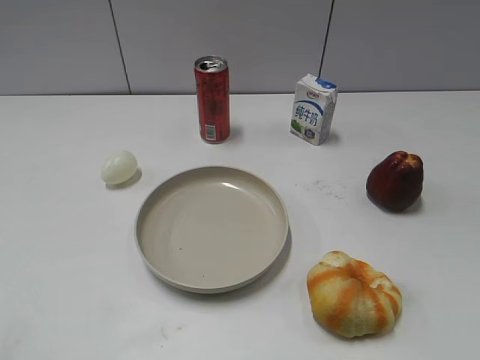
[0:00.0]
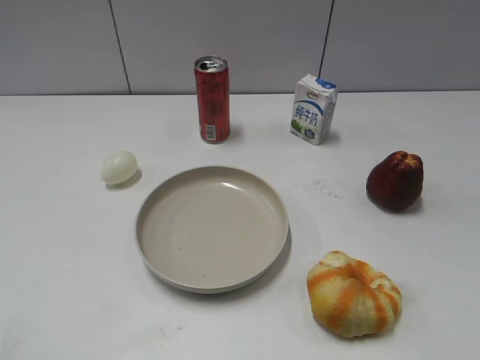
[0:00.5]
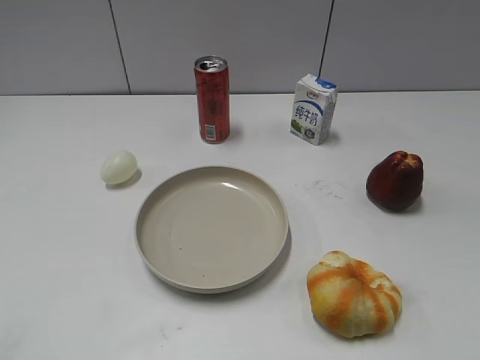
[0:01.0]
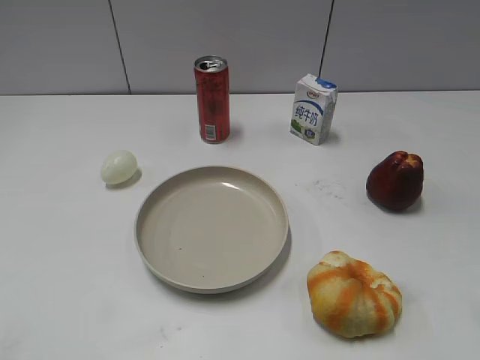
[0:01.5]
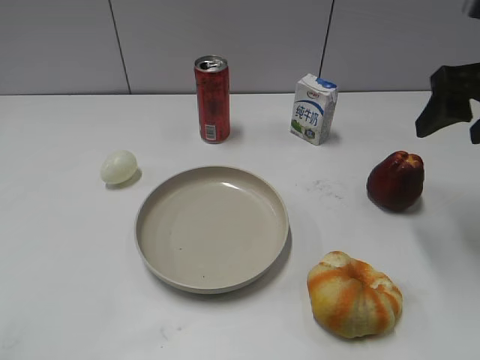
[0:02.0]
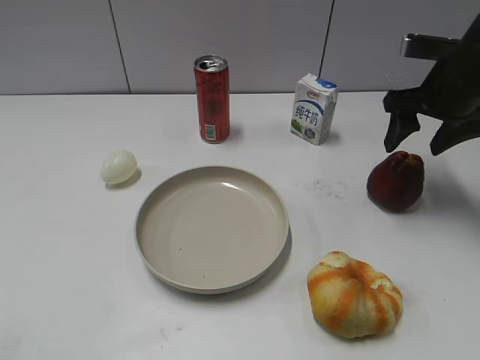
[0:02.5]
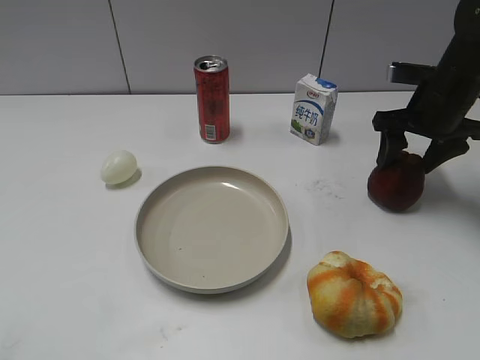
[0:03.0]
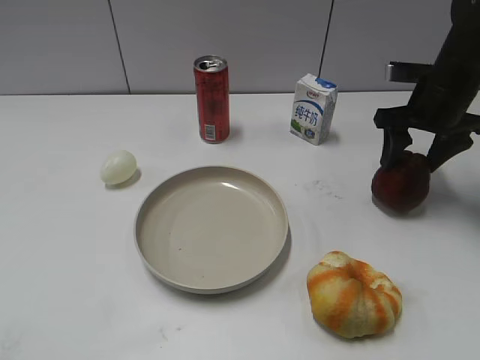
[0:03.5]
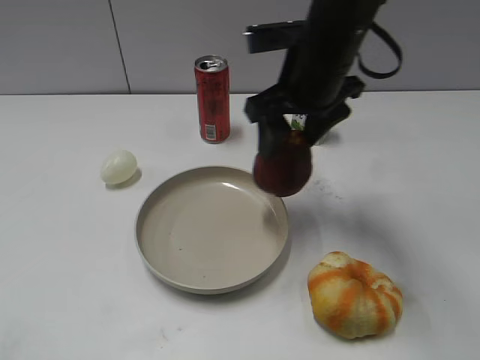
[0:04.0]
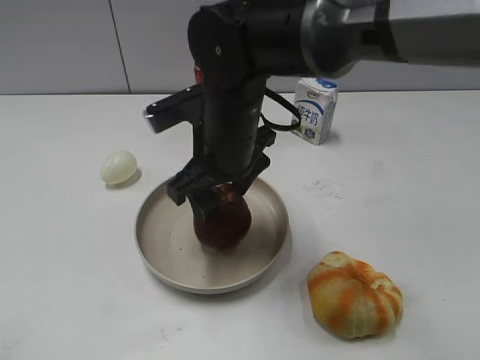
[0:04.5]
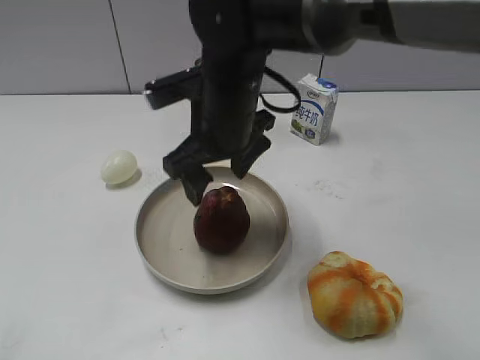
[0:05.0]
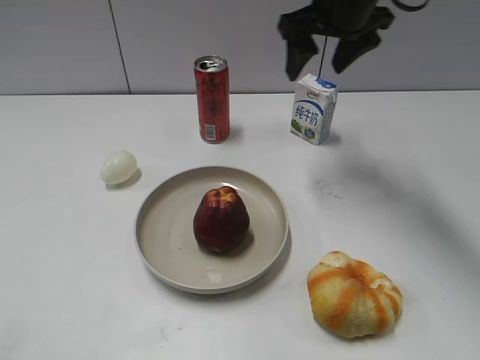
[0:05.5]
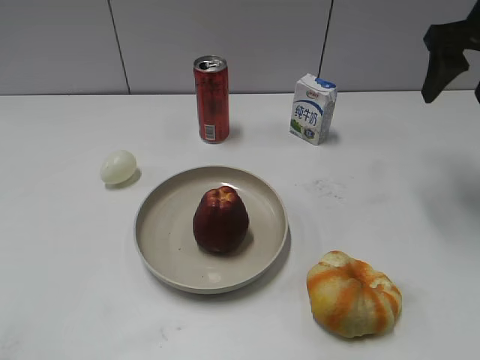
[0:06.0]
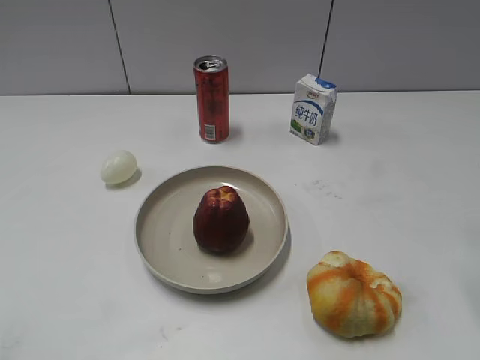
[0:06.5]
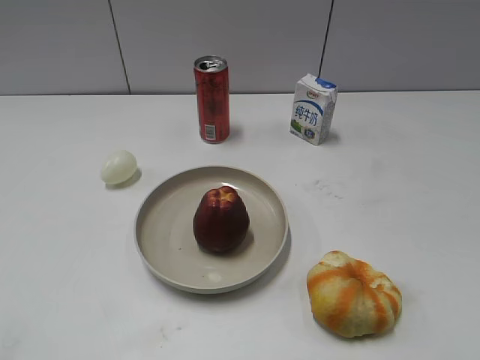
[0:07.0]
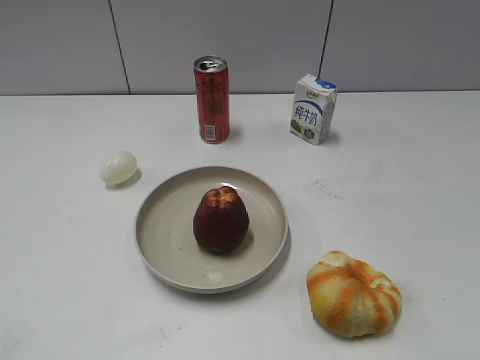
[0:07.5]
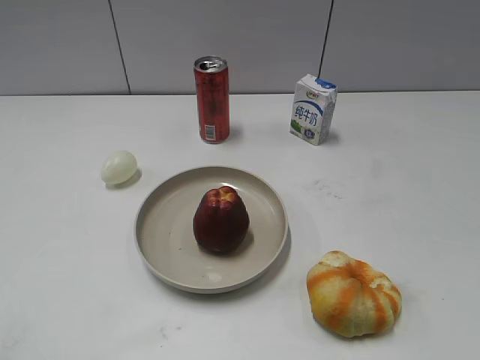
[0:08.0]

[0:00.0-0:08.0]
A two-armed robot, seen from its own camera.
Step, 0:01.0 to 0:03.0: Grasp the apple with right gripper.
Step, 0:03.5 to 0:05.0: Place the apple on the plate with right gripper.
0:02.0 to 0:04.0: The right gripper travels to the left by approximately 20 cm, and closes.
0:04.0 to 0:06.0: The right gripper heads to the right, covering about 20 cm, and opens up.
0:06.0 to 0:08.0: The right gripper travels backward by some 40 cm.
